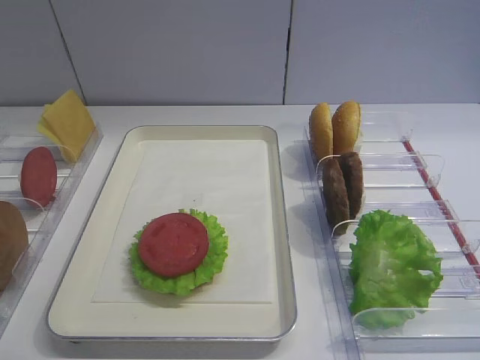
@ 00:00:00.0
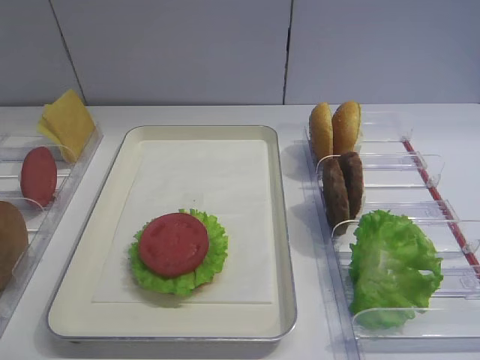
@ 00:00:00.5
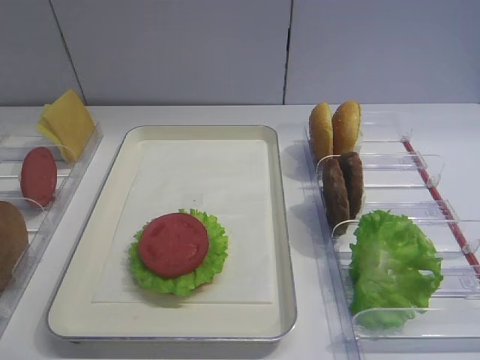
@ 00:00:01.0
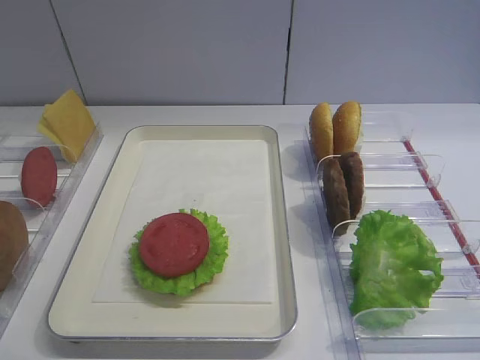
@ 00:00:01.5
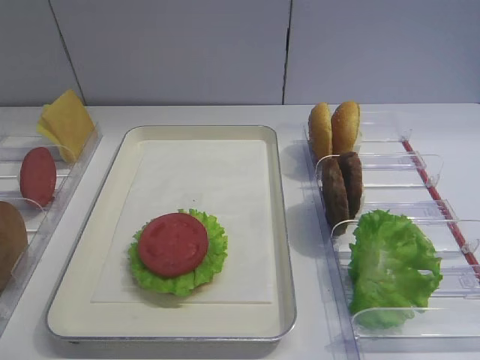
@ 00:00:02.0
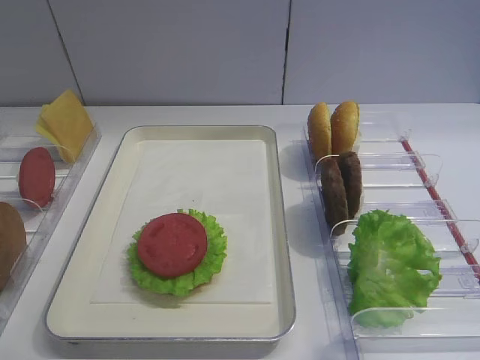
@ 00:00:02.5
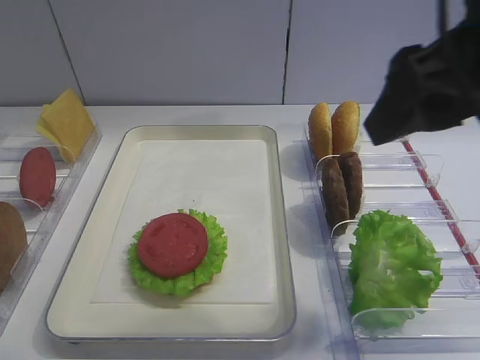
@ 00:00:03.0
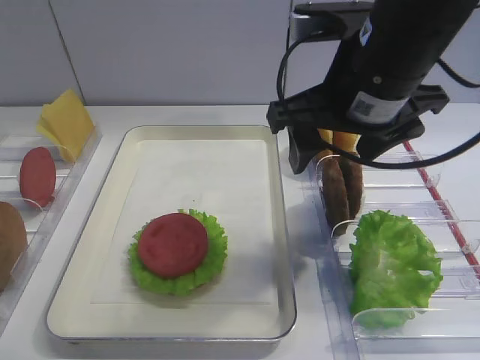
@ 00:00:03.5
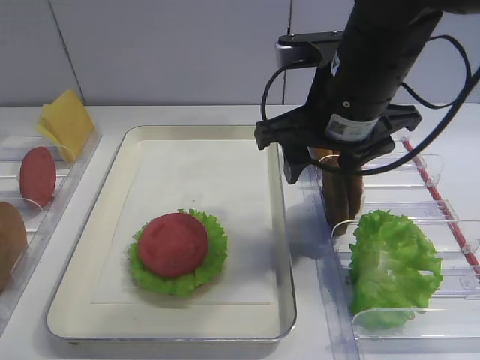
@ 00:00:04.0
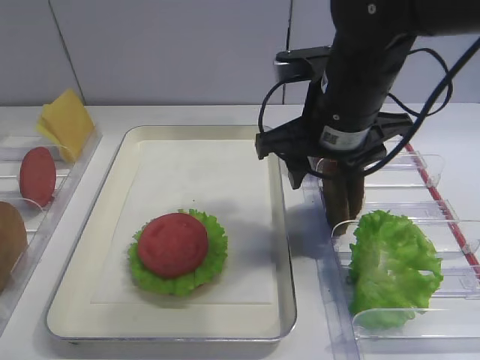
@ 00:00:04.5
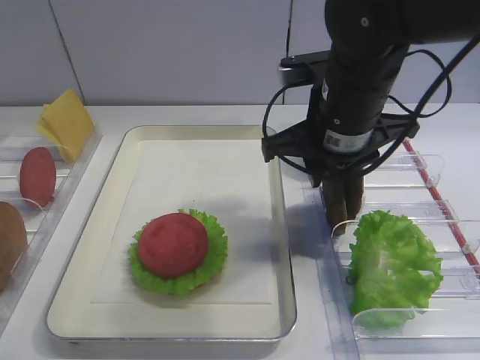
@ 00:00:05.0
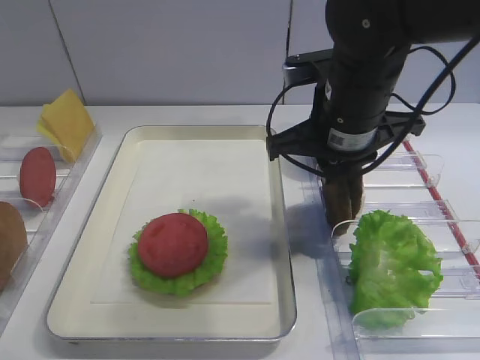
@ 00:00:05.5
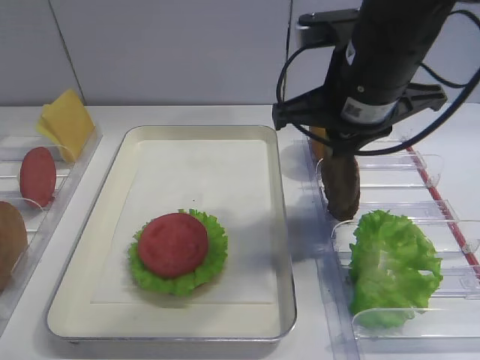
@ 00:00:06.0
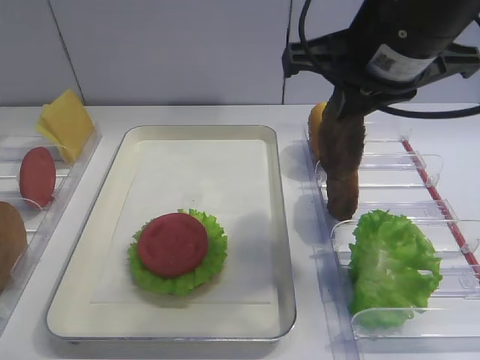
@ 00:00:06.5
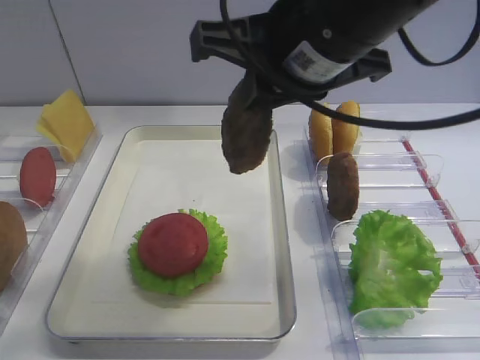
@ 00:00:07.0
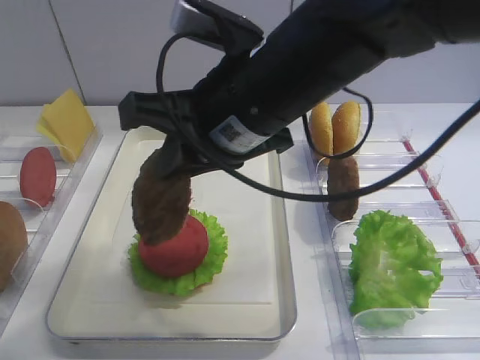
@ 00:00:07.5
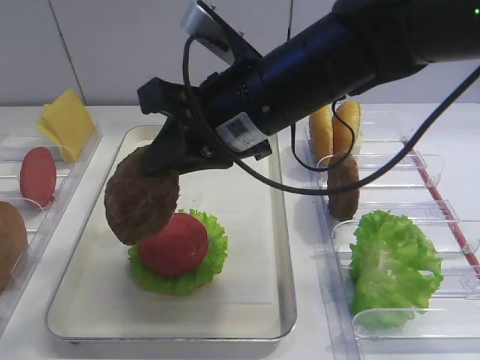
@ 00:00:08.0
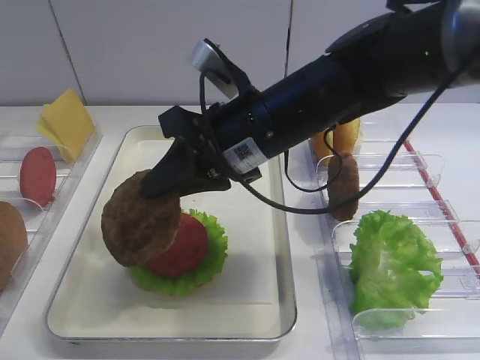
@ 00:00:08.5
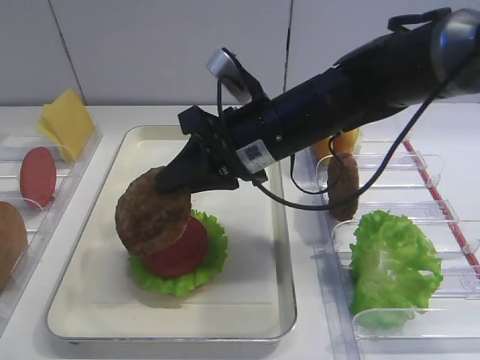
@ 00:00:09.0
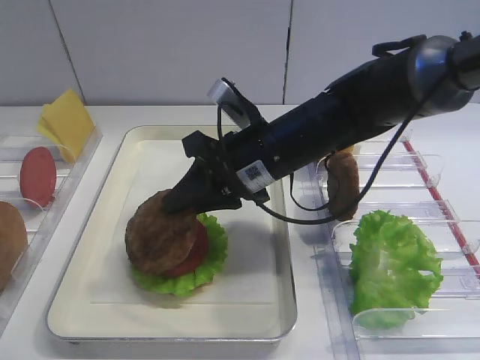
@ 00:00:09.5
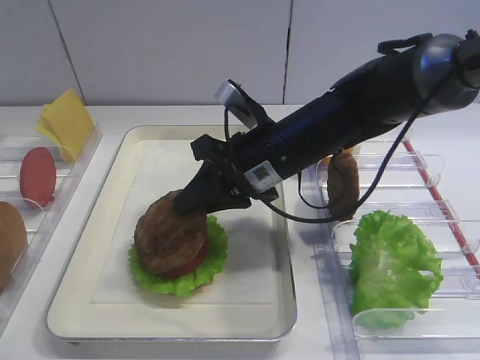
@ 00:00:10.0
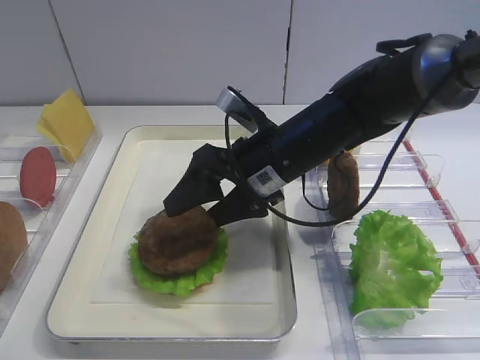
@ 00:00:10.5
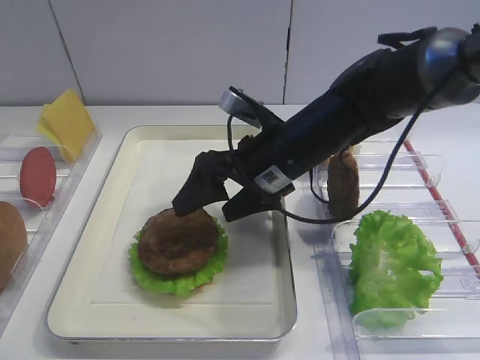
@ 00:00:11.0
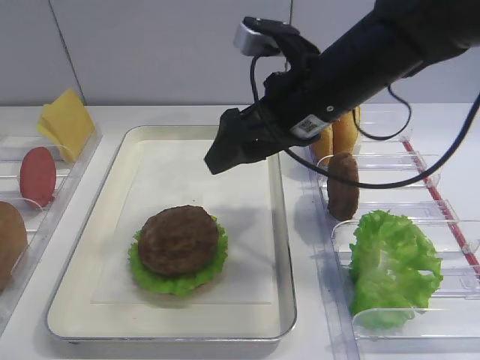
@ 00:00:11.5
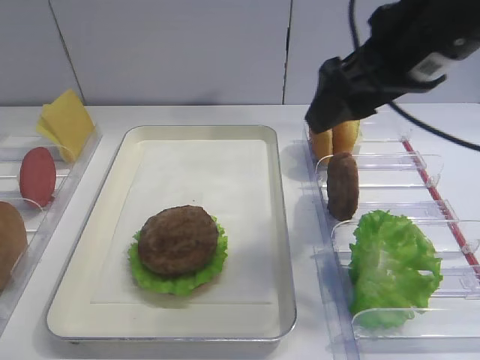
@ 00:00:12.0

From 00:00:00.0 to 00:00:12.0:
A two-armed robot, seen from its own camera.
Step, from 00:00:00.0 to 00:00:06.0: Pick up the cutlet with the right gripper.
Step, from 00:00:06.5 to 00:00:11.0: Place the cutlet on the tomato slice with the right gripper.
From 00:00:02.0 to 00:00:04.0: The right gripper travels forward and to the left by about 30 cm.
From 00:00:04.0 to 00:00:06.0: The right gripper closes up.
From 00:00:06.0 to 00:00:08.0: The right gripper moves to the left, approximately 10 cm.
From 00:00:08.0 to 00:00:10.0: The right gripper is displaced downward by about 10 cm.
From 00:00:10.0 to 00:00:12.0: The right gripper heads upward and to the right, covering roughly 20 cm, and opens.

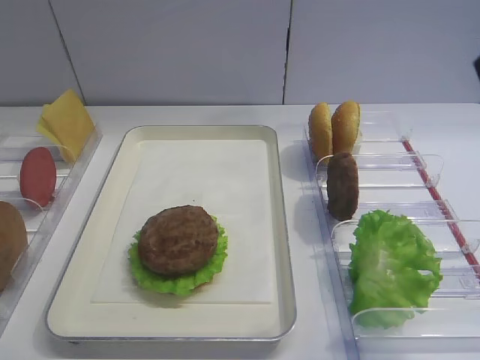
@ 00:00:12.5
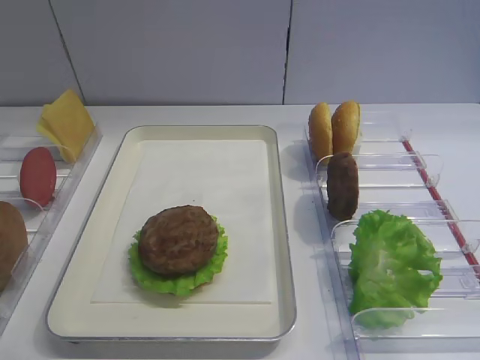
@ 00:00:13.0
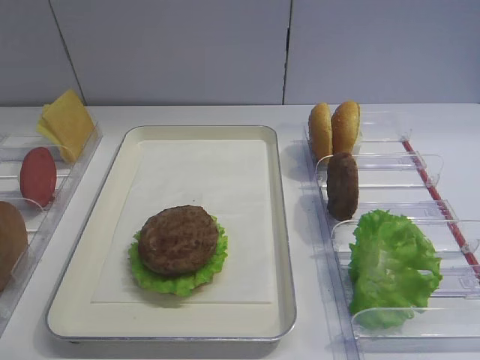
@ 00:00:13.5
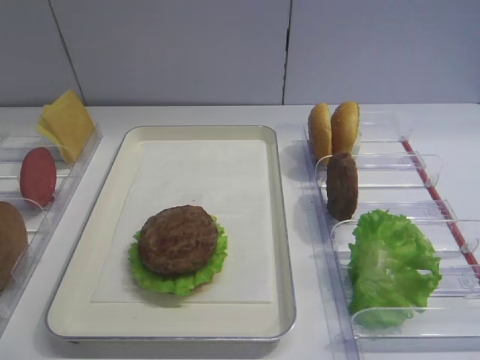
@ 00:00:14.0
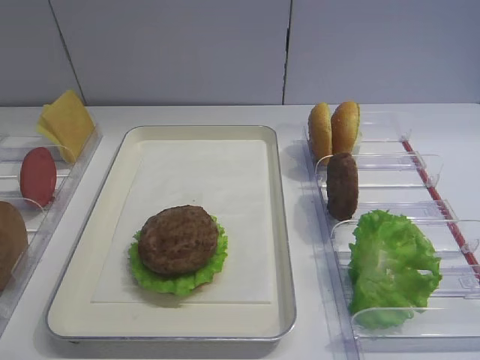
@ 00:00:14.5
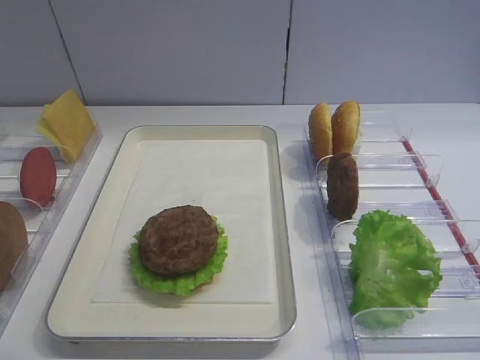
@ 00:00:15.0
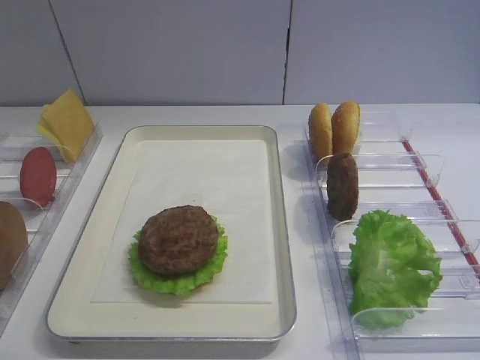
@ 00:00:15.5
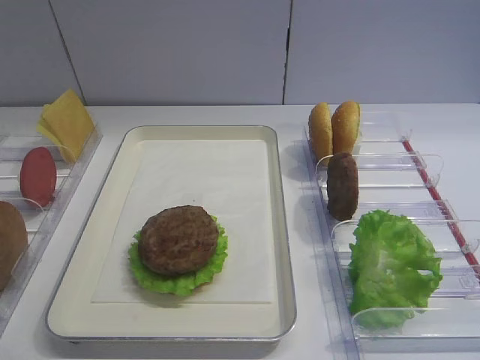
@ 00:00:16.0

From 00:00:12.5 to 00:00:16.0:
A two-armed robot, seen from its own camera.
From 00:00:12.5 to 00:00:14.5: The right gripper is displaced backward and downward by some 20 cm.
From 00:00:14.5 to 00:00:16.0: Both grippers stay about where they are.

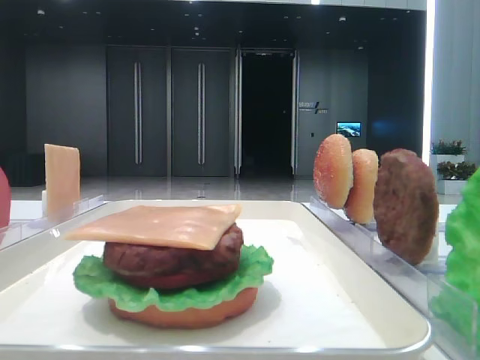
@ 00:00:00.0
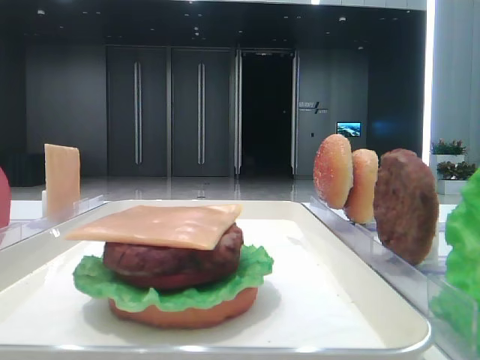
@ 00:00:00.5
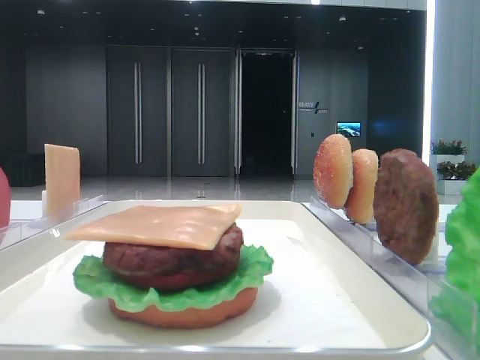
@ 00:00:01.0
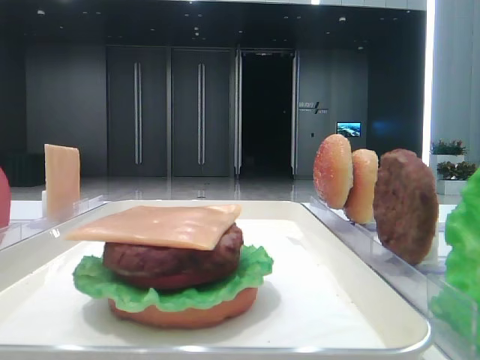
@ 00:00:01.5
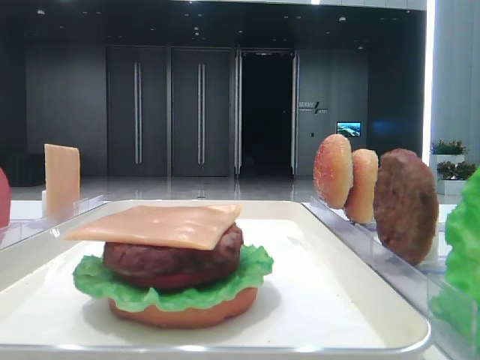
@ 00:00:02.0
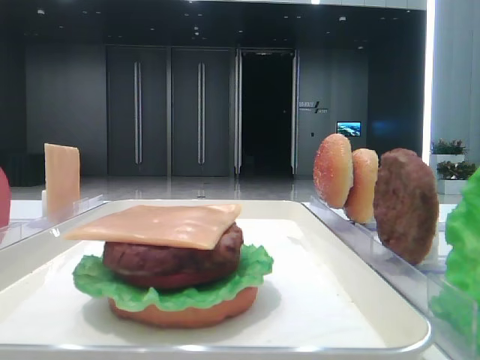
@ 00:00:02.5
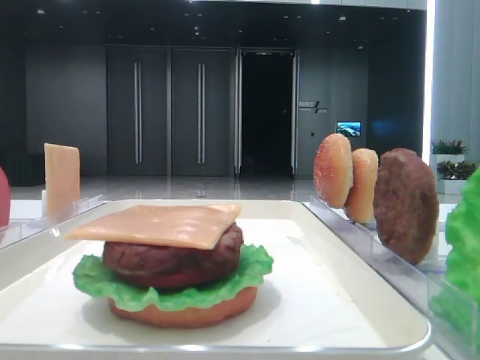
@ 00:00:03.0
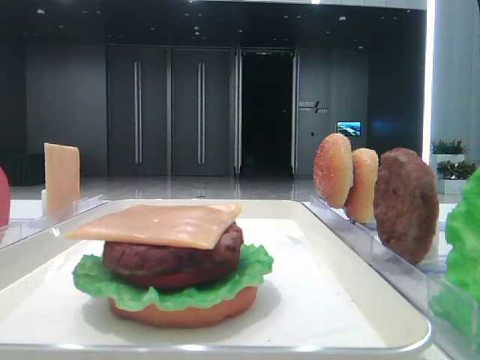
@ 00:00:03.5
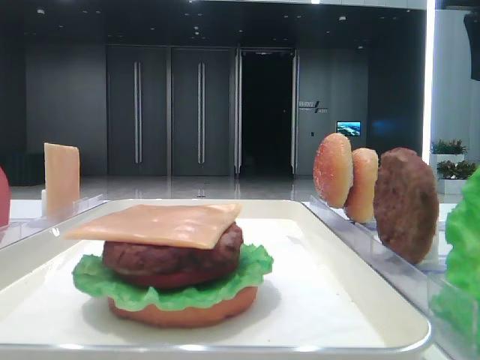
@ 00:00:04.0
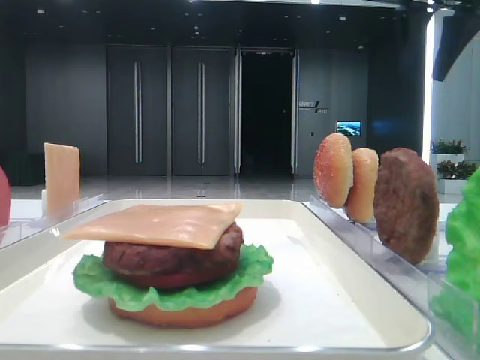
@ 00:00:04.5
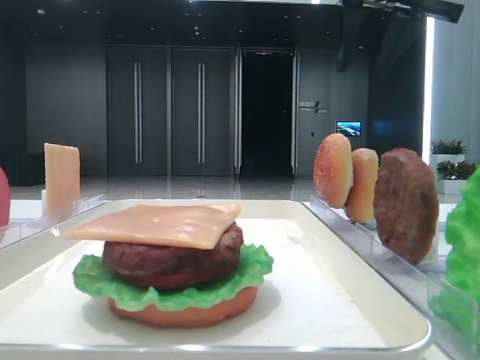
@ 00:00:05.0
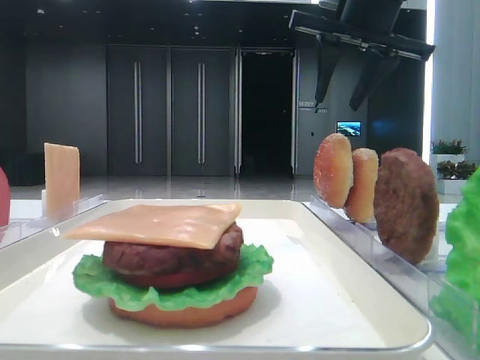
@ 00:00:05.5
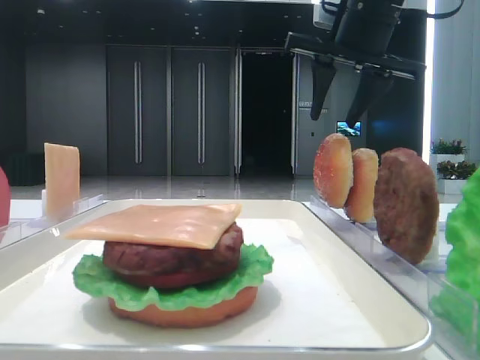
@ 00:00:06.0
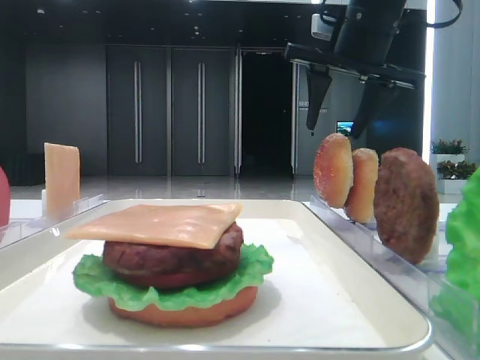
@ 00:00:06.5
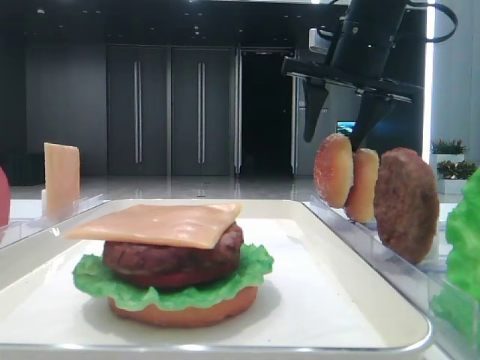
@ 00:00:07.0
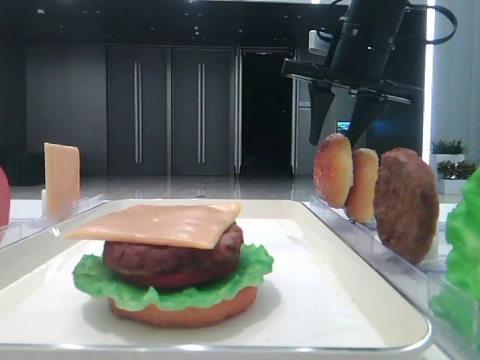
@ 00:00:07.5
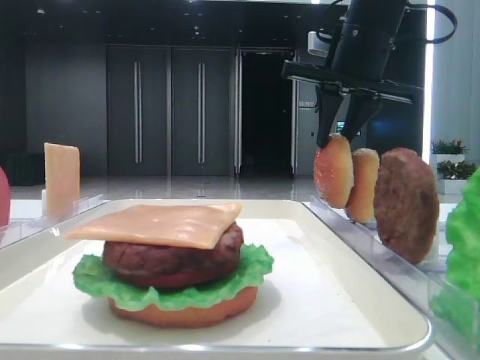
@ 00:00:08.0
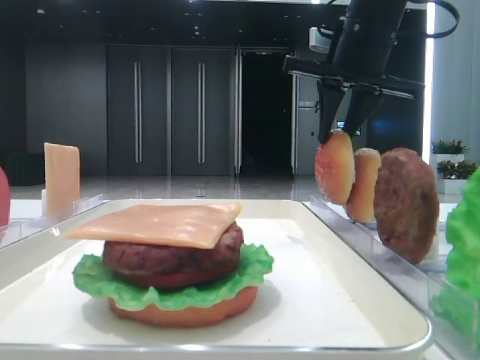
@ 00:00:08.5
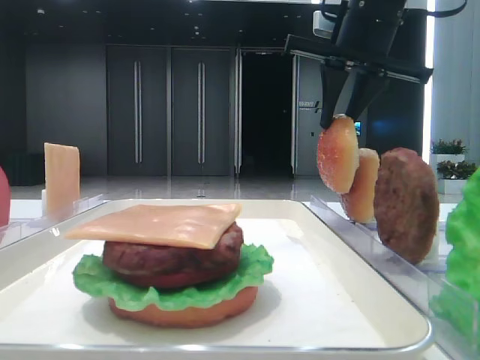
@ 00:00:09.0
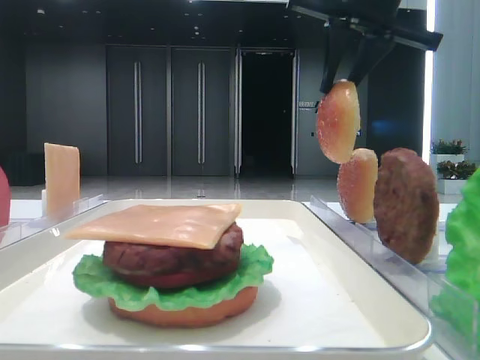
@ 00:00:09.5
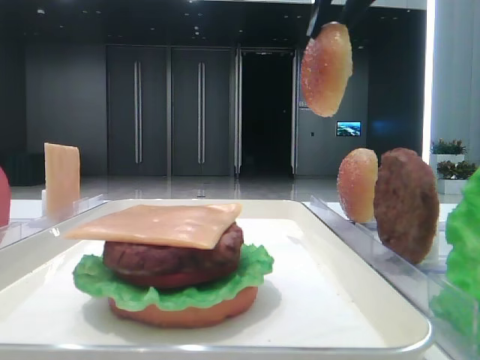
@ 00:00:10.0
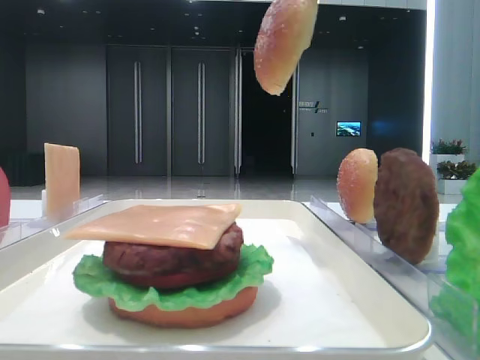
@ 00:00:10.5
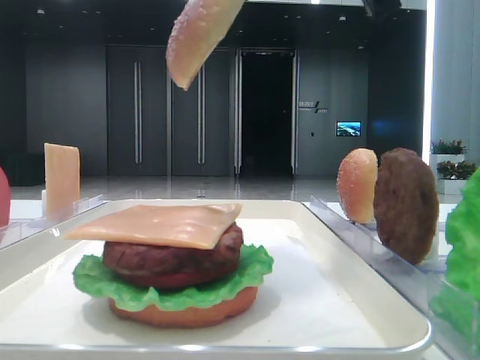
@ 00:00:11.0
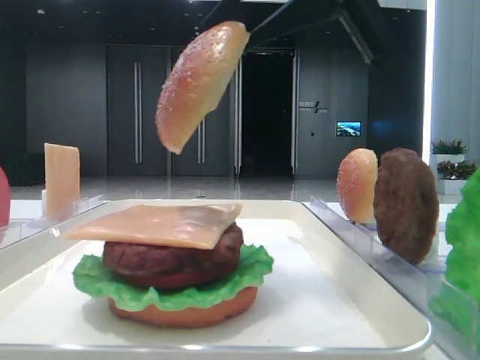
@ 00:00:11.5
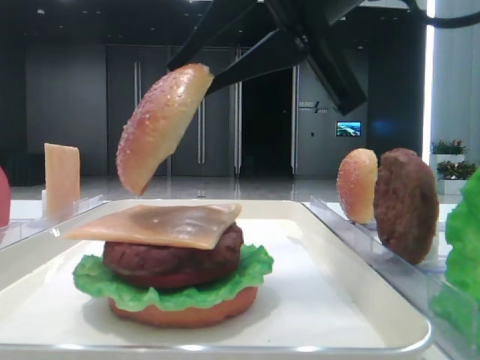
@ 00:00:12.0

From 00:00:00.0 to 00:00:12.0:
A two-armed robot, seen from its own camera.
Step, from 00:00:00.0 to 00:00:07.5: Pick up the top bread slice with the right hand.
From 00:00:02.0 to 00:00:04.0: The right gripper is displaced forward by some 35 cm. Meanwhile the left gripper closes its fingers.
From 00:00:04.0 to 00:00:06.0: The right gripper goes some 15 cm to the left.
From 00:00:06.0 to 00:00:08.0: The right gripper closes up.
From 00:00:08.0 to 00:00:10.0: The right gripper is displaced upward and backward by some 15 cm.
From 00:00:10.0 to 00:00:12.0: The right gripper goes approximately 15 cm backward, downward and to the left.
